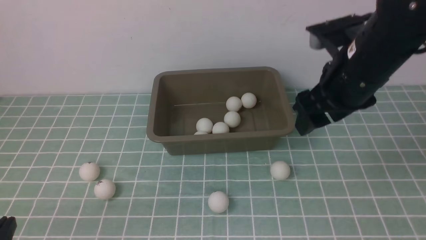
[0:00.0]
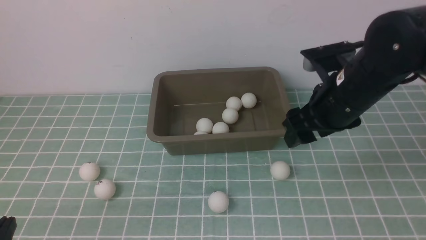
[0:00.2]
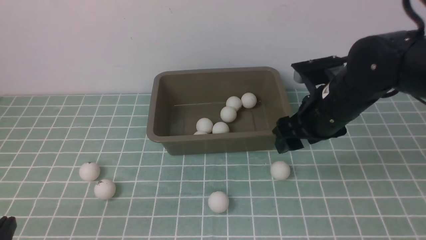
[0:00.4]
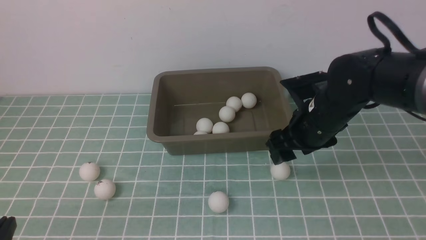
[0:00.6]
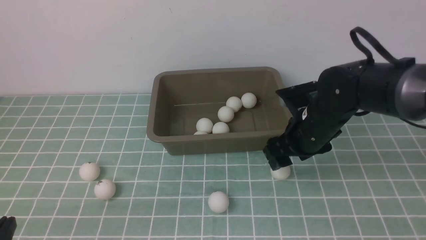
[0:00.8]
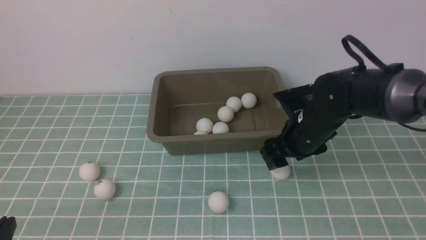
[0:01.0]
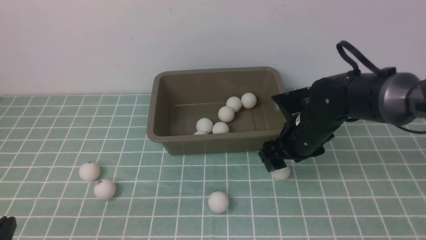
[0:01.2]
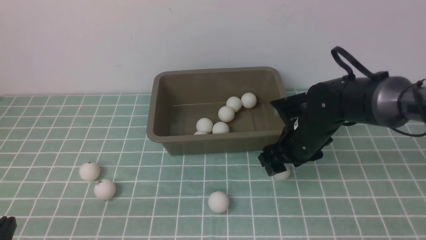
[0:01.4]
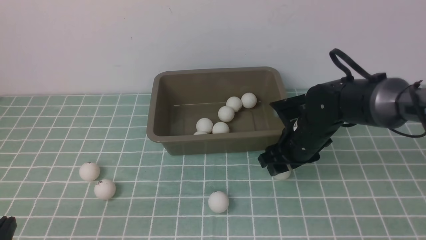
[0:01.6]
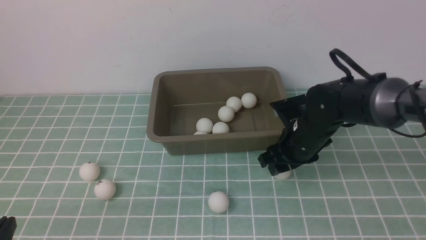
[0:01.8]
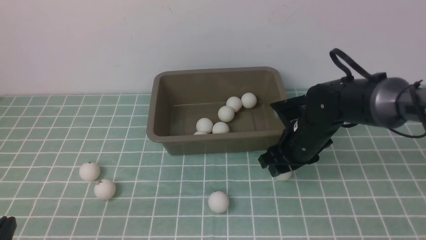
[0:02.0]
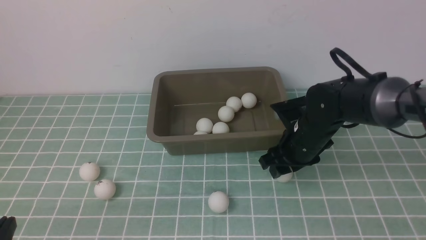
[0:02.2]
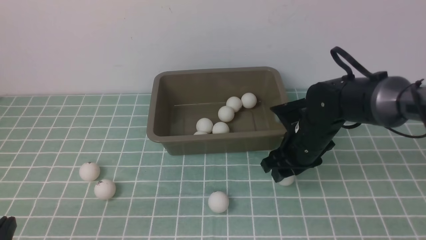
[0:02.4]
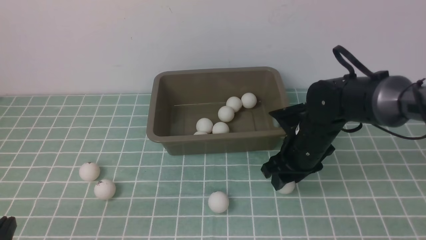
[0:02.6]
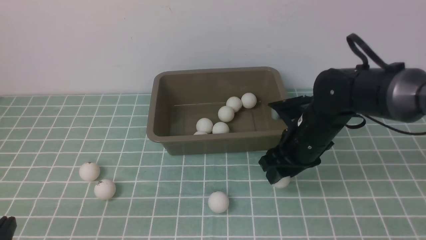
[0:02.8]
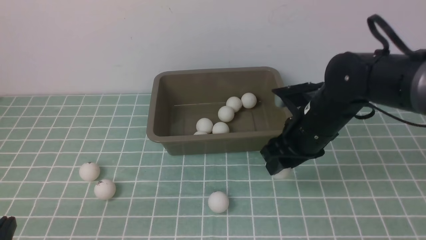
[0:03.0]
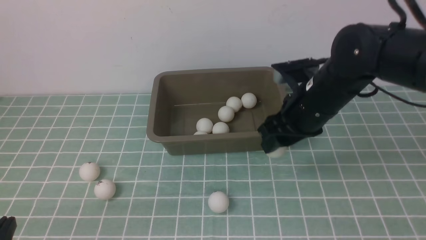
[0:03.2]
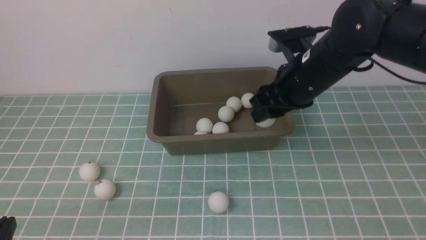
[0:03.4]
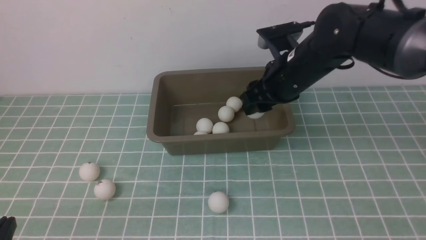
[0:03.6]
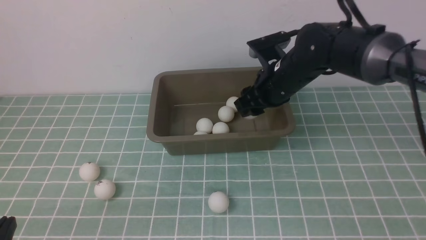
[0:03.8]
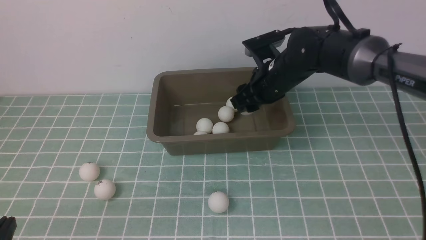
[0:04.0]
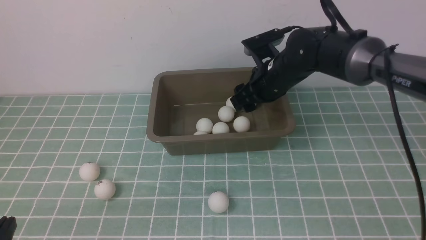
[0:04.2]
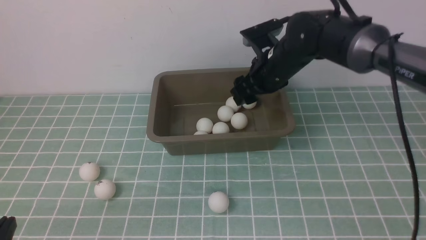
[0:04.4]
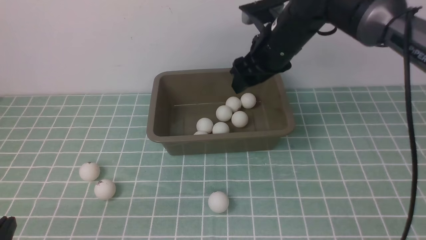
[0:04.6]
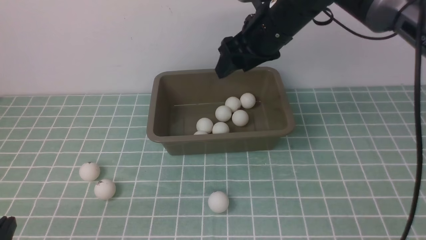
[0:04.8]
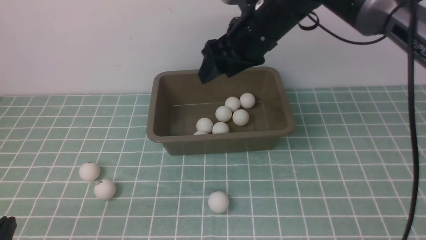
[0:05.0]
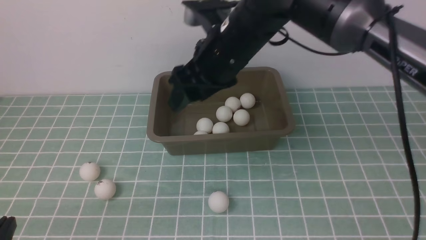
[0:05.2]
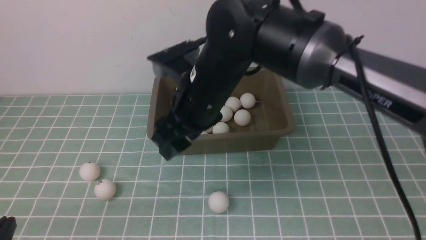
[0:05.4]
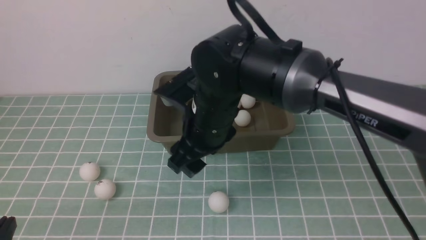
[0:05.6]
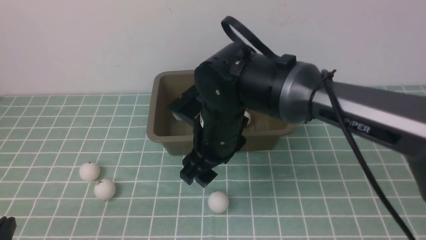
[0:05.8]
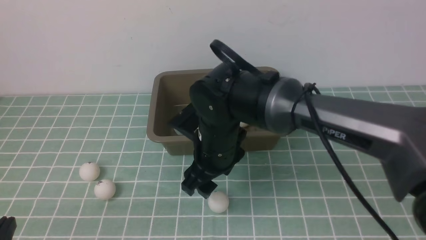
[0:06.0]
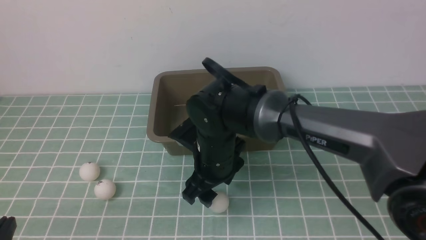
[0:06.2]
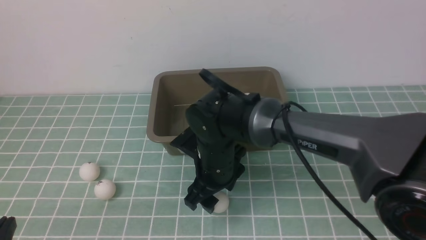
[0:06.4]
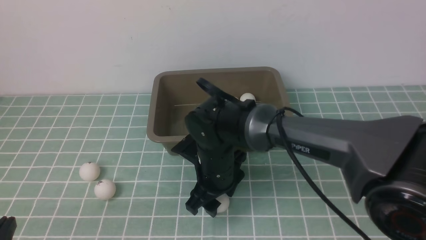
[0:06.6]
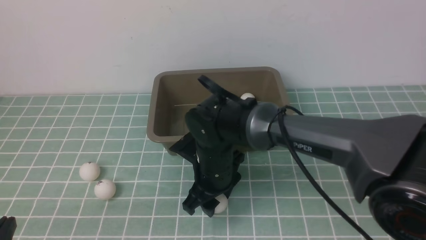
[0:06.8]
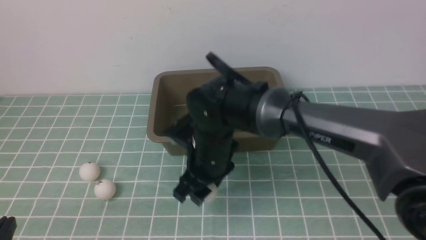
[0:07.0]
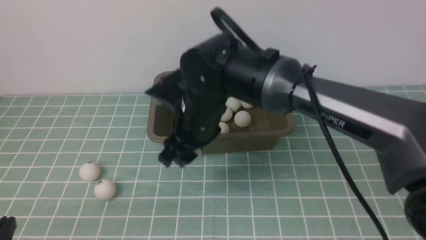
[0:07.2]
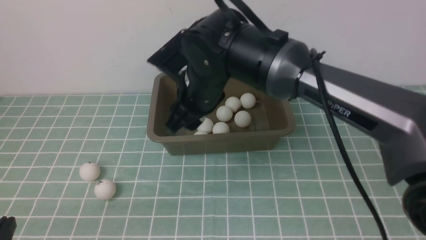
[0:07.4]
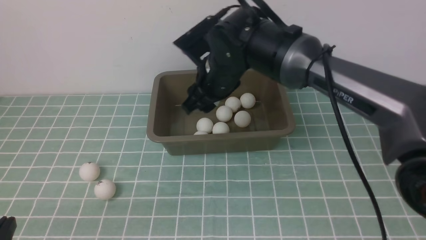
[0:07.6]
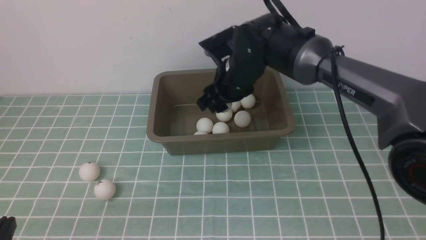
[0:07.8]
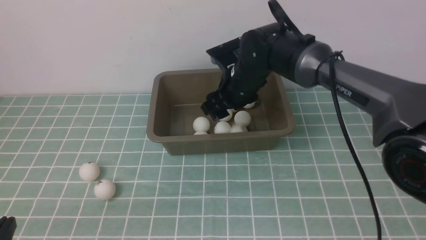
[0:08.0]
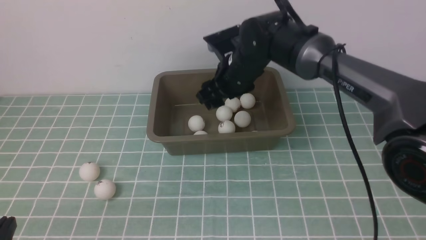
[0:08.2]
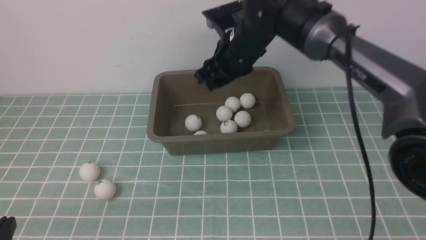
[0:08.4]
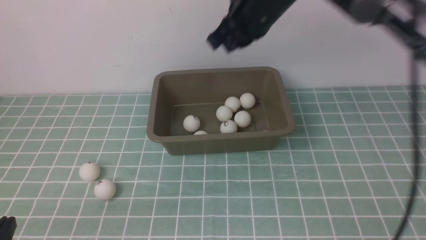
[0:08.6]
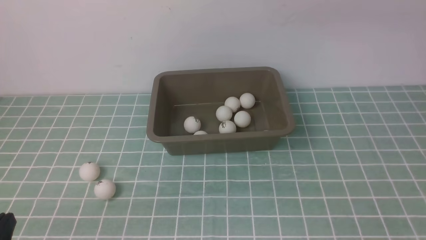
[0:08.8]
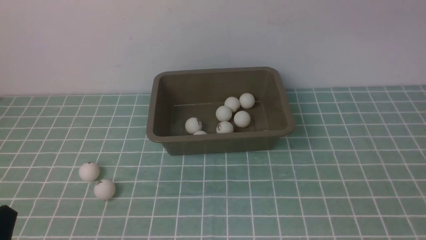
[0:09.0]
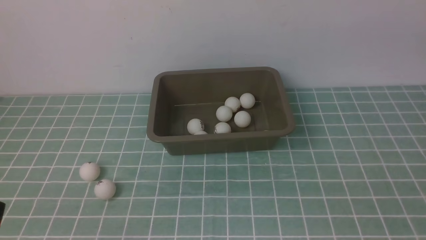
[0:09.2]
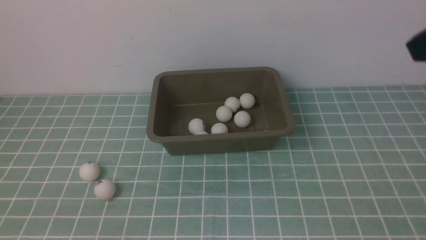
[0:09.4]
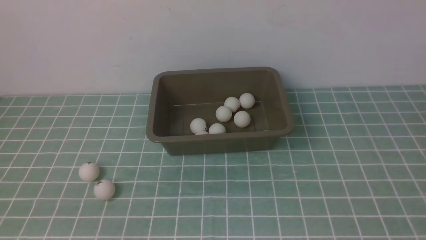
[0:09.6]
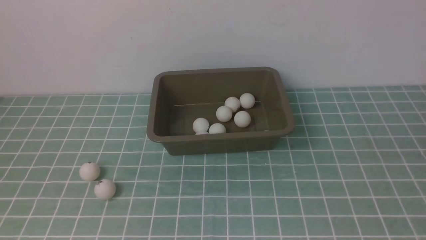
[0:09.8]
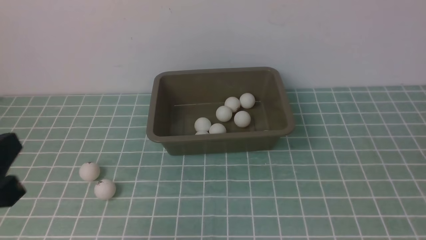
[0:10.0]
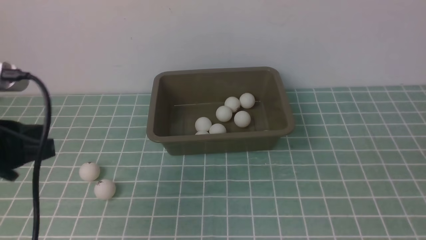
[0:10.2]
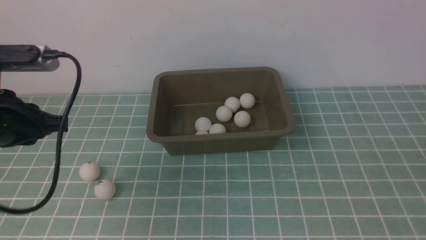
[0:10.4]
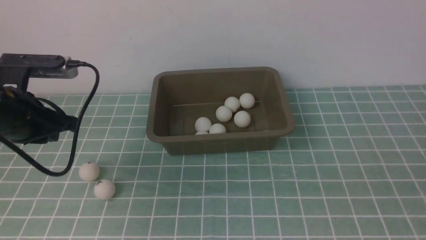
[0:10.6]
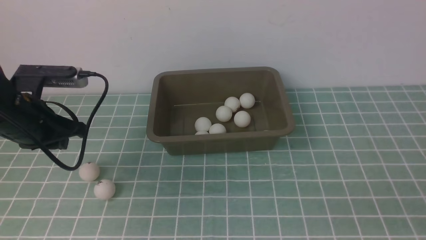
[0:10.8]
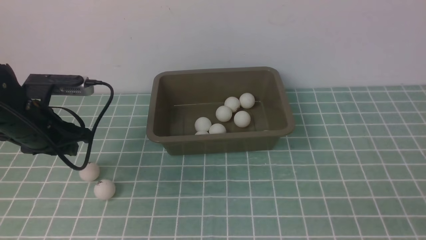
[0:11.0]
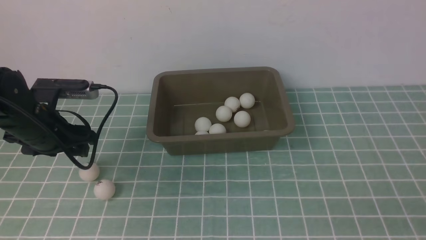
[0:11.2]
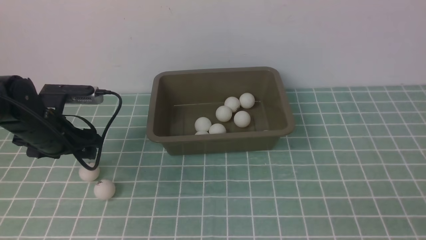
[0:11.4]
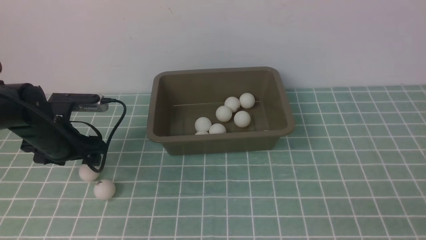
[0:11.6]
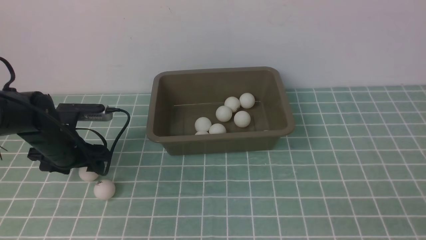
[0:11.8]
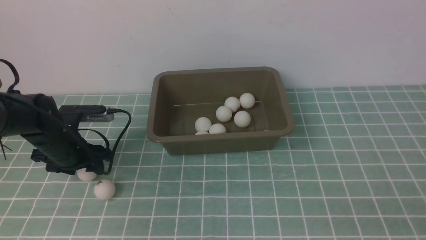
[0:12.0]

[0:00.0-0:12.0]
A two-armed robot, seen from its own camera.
Step, 0:00.0 to 0:02.8: use the right arm to clamp the table tennis ball closest to it.
Step, 0:03.0 to 0:04.2: use the right arm to put the table tennis ball into the box.
Step, 0:04.4 to 0:07.0: use the right arm to clamp the table tennis ball closest to it.
Step, 0:07.2 to 0:08.0: use the right arm to put the table tennis ball into the box.
0:00.0 to 0:01.6: The right gripper goes some 15 cm downward.
0:01.6 to 0:03.0: The right gripper moves upward, about 5 cm.
0:03.0 to 0:04.4: The right gripper is displaced forward by some 10 cm.
0:04.4 to 0:06.0: The right gripper moves backward and to the left, about 15 cm.
0:06.0 to 0:07.6: The right gripper moves forward, some 10 cm.
0:07.6 to 0:09.0: The right gripper goes about 35 cm upward, to the right and backward, and closes up.
0:09.0 to 0:10.4: The left gripper moves forward and upward, about 25 cm. The right gripper moves backward, downward and to the right, approximately 30 cm.
0:10.4 to 0:12.0: The left gripper heads forward, covering roughly 15 cm, and opens its fingers.

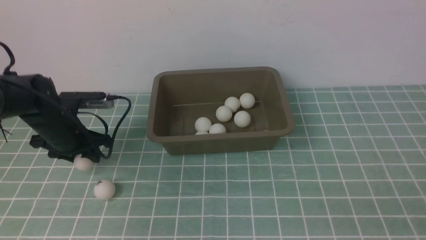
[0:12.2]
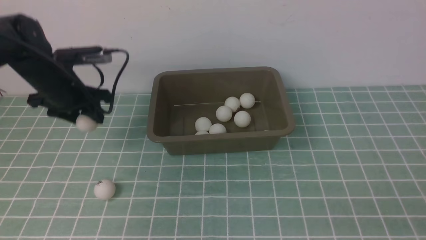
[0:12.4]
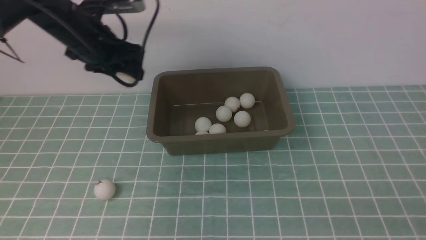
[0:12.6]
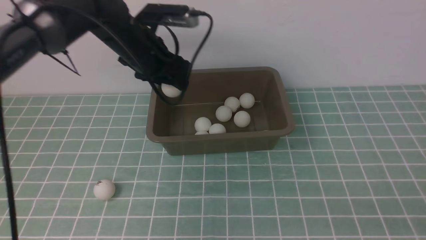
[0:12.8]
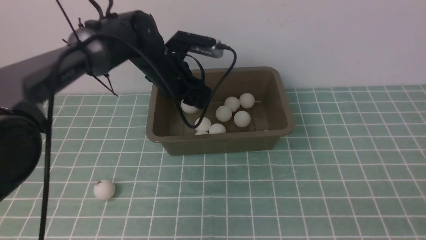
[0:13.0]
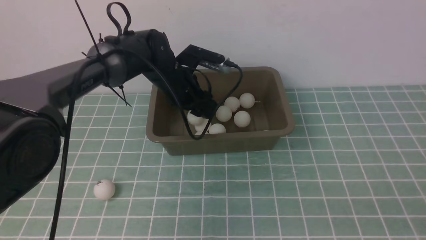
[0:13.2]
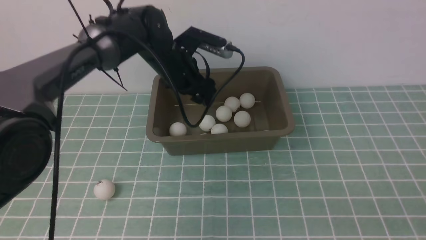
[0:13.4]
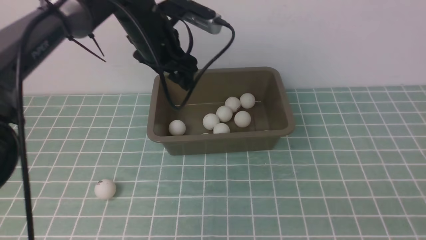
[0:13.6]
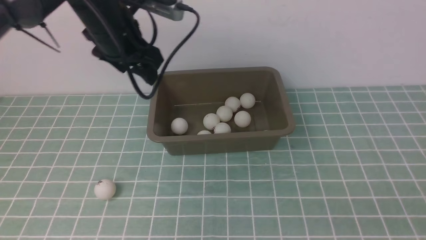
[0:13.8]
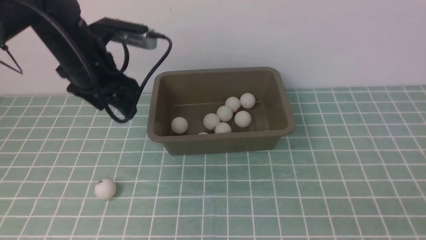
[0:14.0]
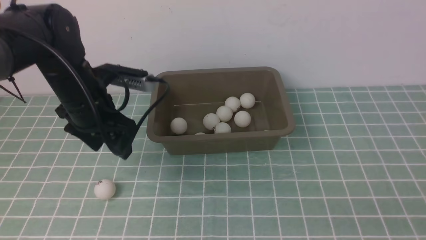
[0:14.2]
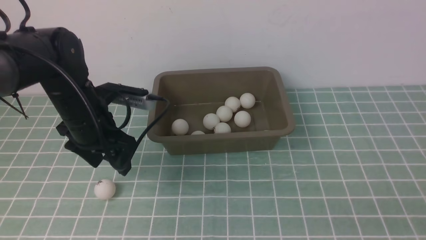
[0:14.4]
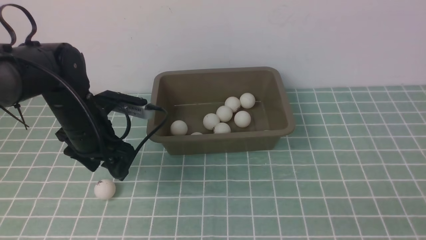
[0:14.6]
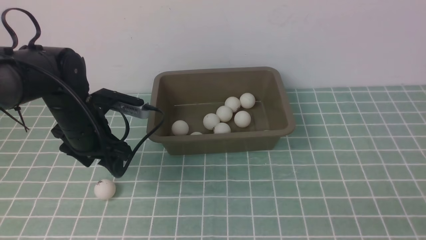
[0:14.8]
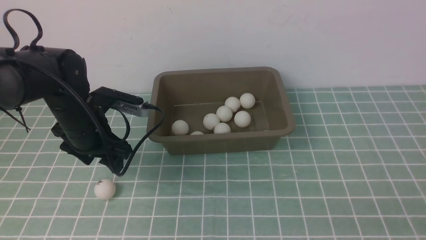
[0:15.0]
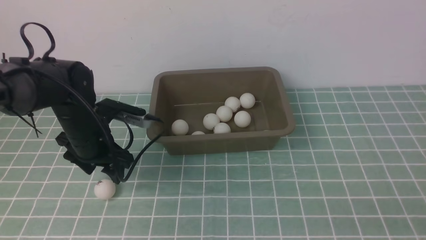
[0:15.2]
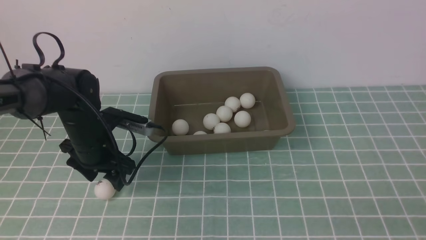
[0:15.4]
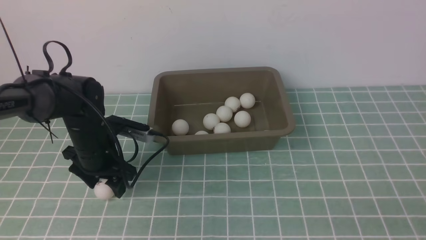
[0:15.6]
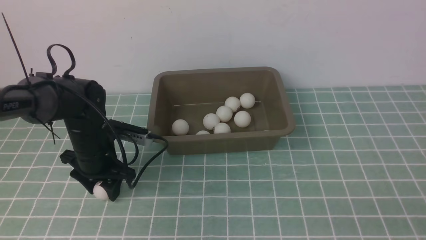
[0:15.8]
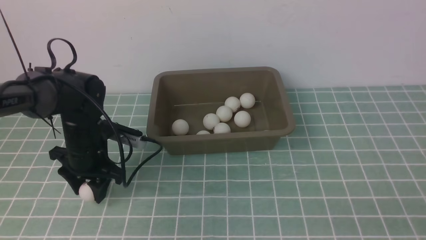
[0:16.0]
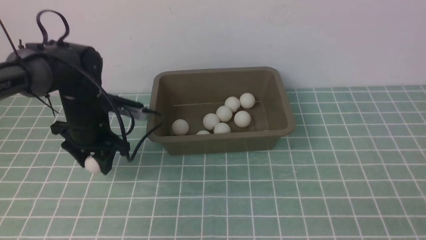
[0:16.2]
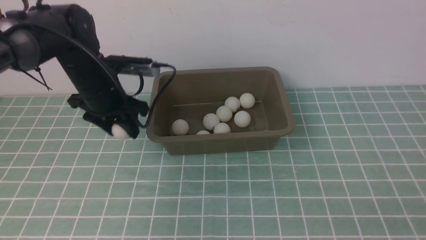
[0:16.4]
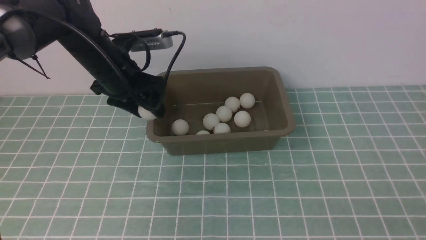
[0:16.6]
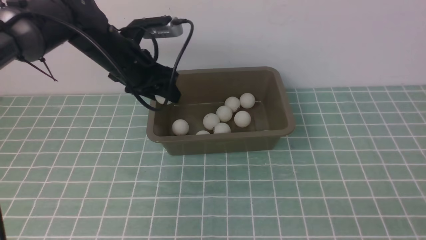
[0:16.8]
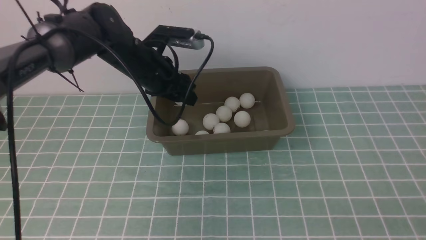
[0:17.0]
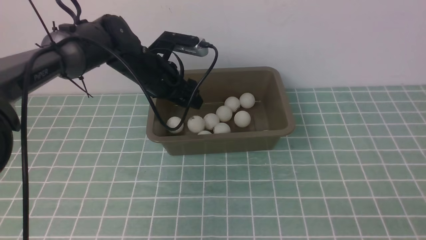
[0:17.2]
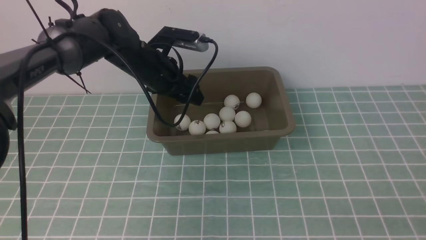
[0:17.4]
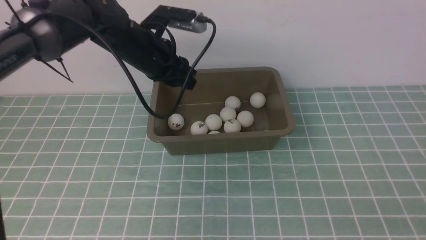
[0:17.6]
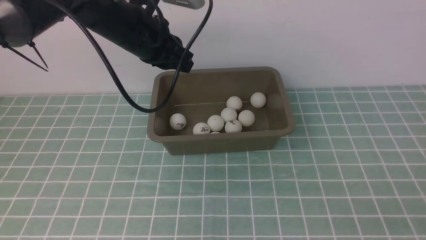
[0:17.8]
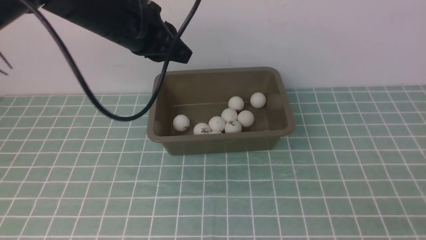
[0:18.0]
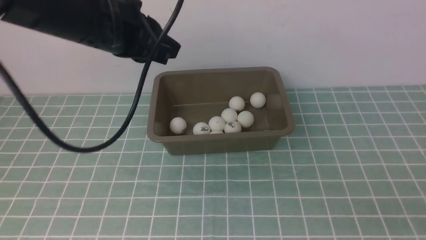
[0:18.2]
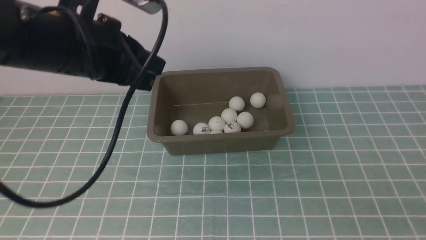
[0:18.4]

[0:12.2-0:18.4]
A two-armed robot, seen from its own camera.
Step, 0:12.4 to 0:13.4: use the left arm to put the table tennis ball into the box.
Step, 0:13.6 to 0:16.0: use the left arm to clamp the table tennis ball closest to it.
Step, 0:16.4 to 0:17.4: use the left arm to put the table tennis ball into the box.
0:12.2 to 0:13.8: The left gripper shifts roughly 10 cm backward and downward, and travels to the right and back again, about 10 cm each way.
0:13.8 to 0:15.4: The left gripper travels downward by roughly 10 cm.
0:15.4 to 0:16.8: The left gripper is displaced upward, forward and to the right by approximately 15 cm.
0:16.8 to 0:18.4: The left gripper is displaced backward and upward by roughly 20 cm, and closes its fingers, while the right gripper shifts by about 5 cm.
